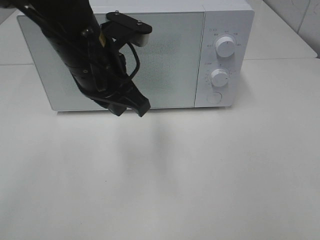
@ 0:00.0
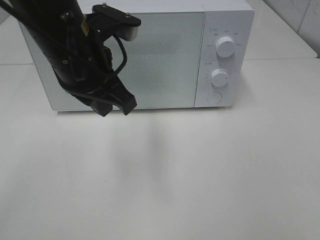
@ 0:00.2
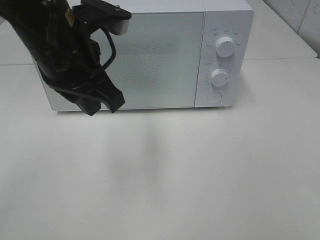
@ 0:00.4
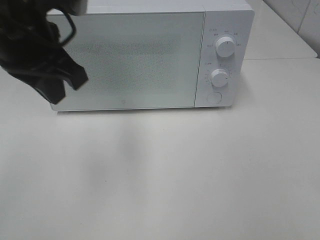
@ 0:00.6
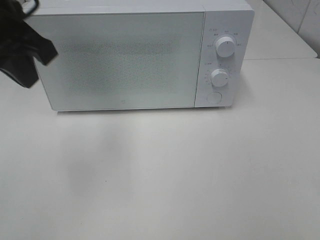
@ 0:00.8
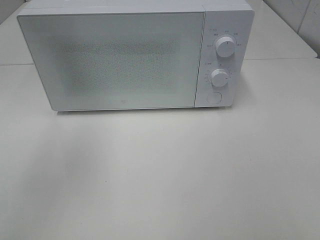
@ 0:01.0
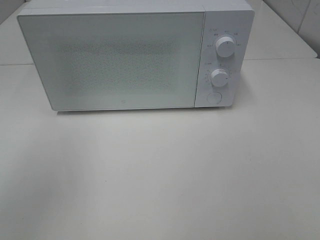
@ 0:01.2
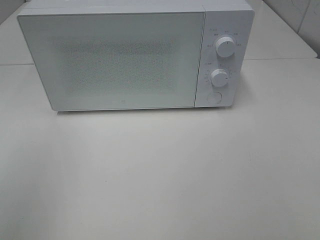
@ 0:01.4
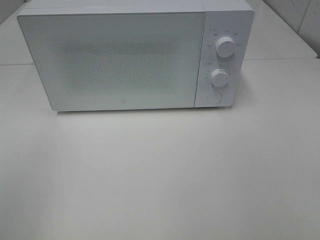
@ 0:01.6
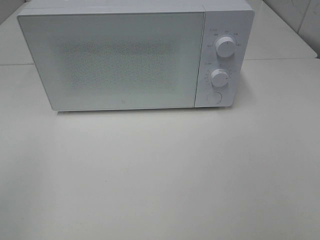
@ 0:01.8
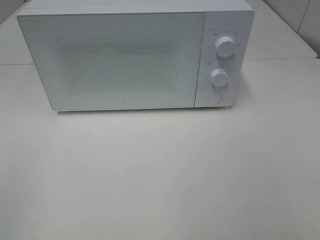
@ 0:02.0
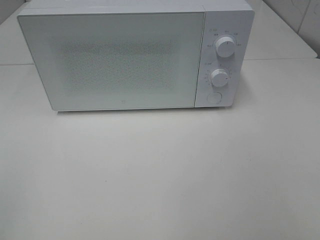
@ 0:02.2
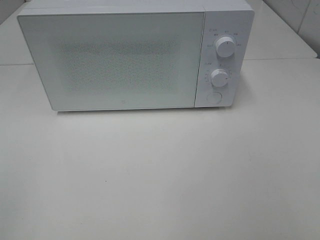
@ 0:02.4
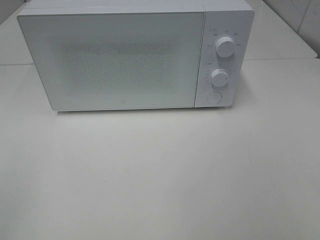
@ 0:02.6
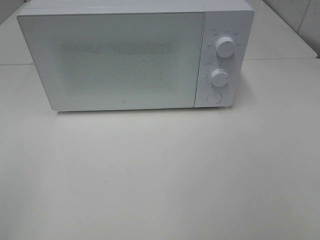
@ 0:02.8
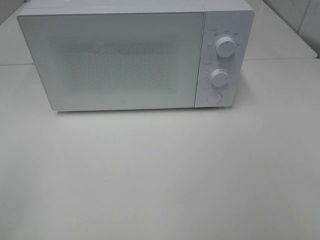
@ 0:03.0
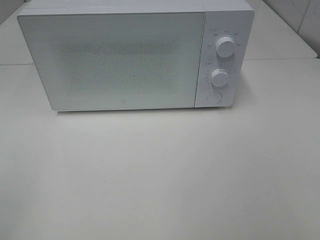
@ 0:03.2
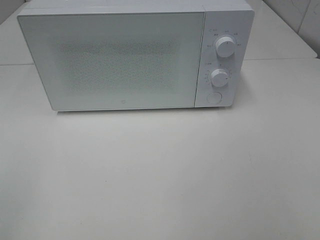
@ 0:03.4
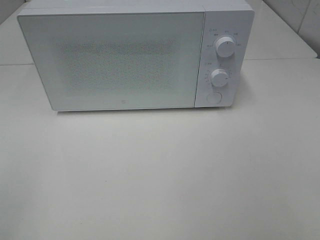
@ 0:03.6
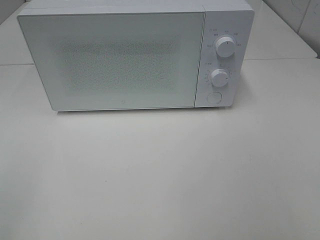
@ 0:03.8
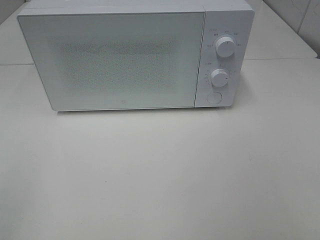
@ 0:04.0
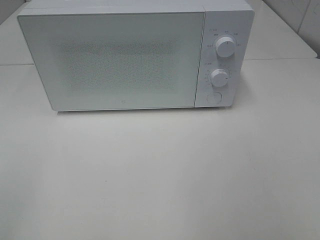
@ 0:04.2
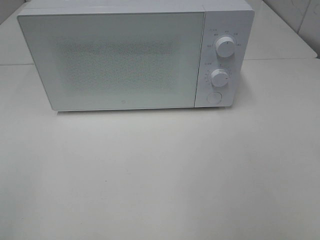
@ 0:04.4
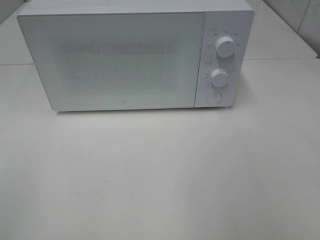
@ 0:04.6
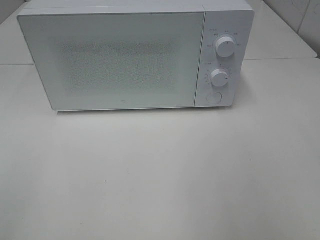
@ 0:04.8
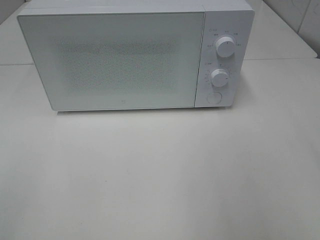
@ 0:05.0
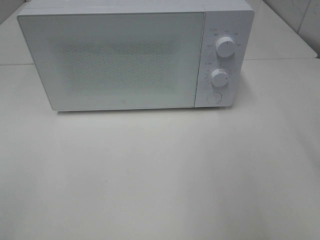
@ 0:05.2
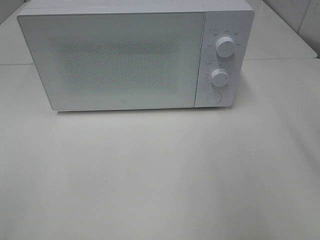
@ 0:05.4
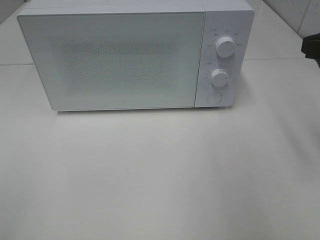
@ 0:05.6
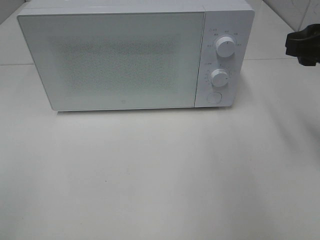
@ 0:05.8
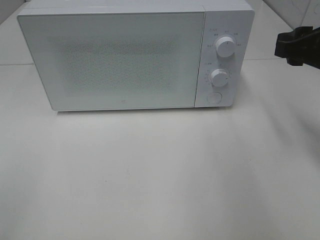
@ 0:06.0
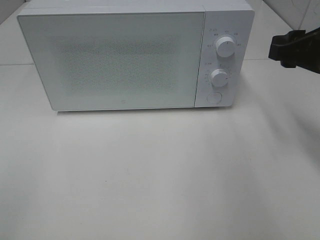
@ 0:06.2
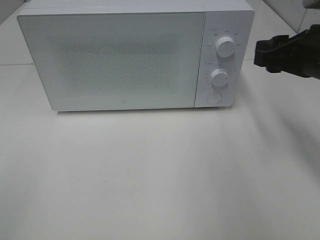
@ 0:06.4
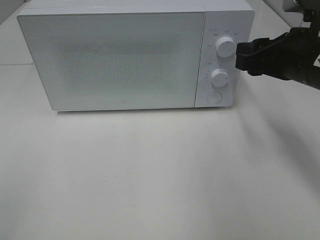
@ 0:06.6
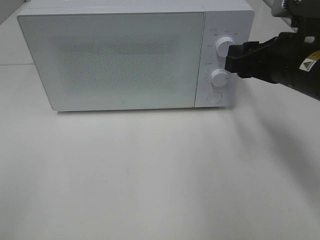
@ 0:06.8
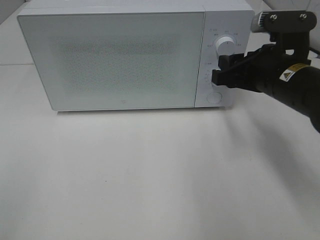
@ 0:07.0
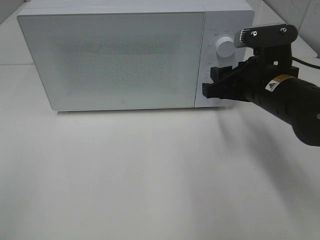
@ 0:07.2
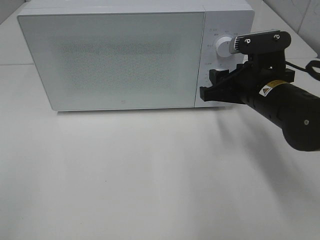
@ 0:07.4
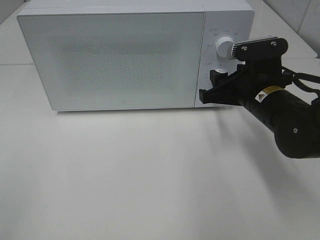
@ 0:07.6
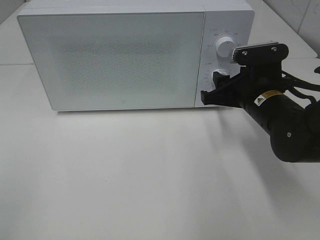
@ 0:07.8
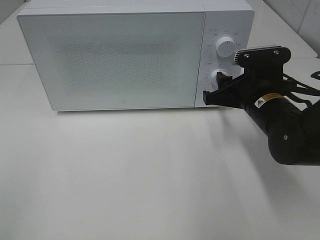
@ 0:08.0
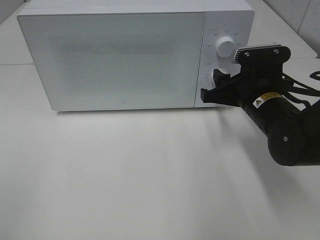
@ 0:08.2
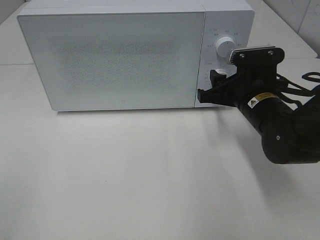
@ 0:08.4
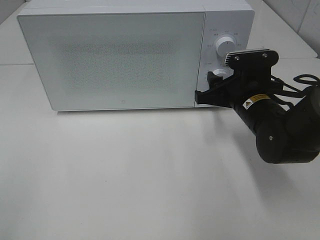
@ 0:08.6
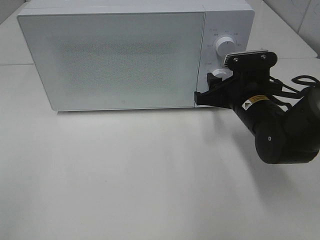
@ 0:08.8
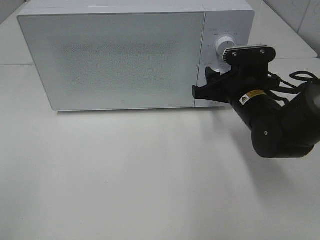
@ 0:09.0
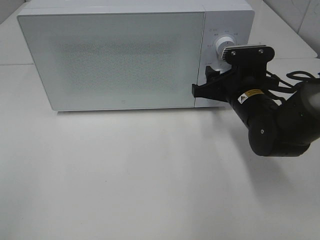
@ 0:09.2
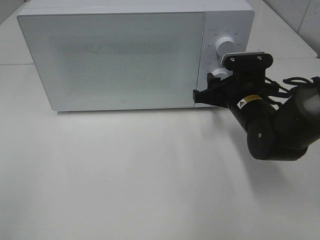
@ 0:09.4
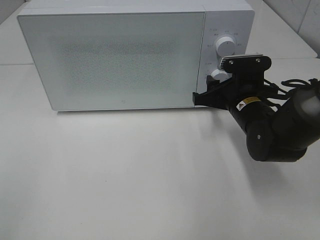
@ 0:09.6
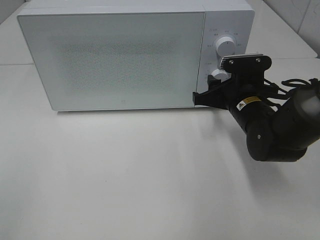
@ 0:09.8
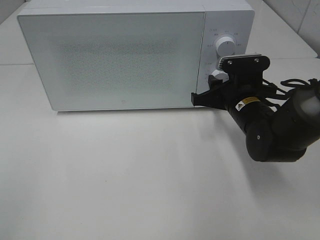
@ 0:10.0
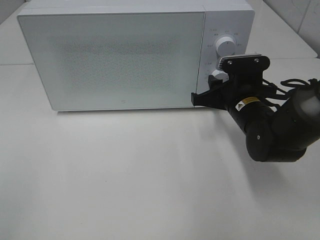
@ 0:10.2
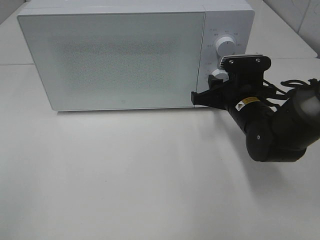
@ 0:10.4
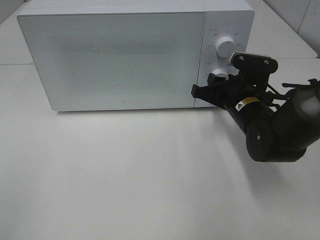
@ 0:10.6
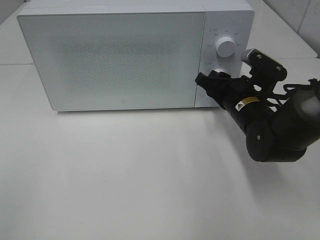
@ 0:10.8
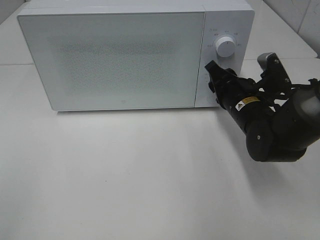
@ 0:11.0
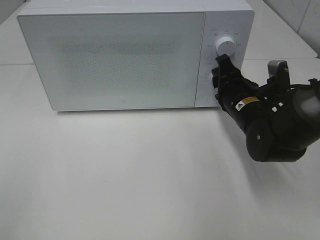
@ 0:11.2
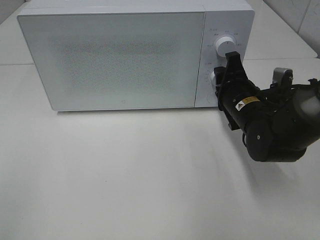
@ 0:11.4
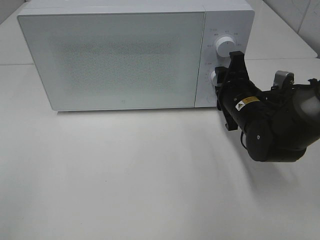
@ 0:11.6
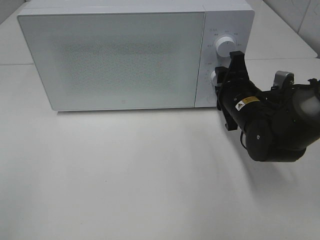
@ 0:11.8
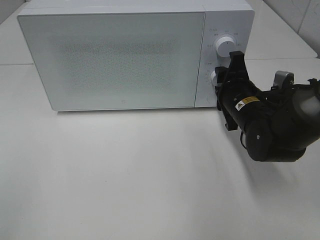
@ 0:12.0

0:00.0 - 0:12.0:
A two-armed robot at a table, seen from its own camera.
Task of the whole recording: Heat the burger.
0:00.0 - 0:01.6: The left gripper heads to the left, backward and upward, covering some 35 cm.
0:04.4 - 0:06.0: The right gripper moves forward, roughly 20 cm.
0:06.0 - 0:07.6: The right gripper moves downward and to the left, roughly 15 cm.
0:07.6 - 0:10.4: There are only small adjustments of the grippers.

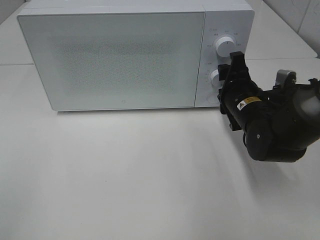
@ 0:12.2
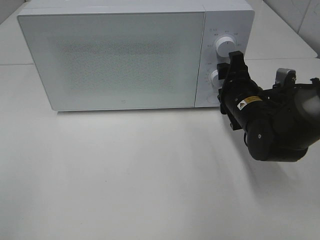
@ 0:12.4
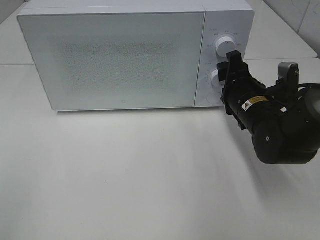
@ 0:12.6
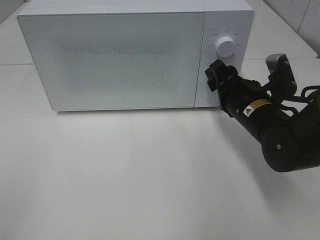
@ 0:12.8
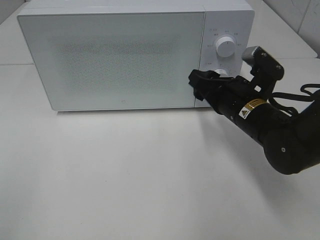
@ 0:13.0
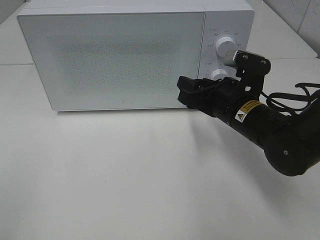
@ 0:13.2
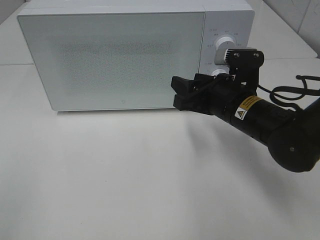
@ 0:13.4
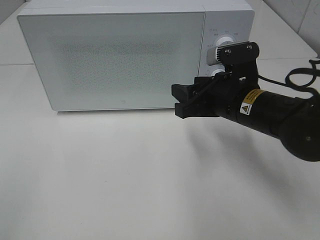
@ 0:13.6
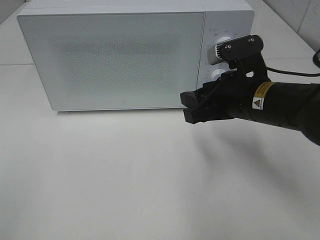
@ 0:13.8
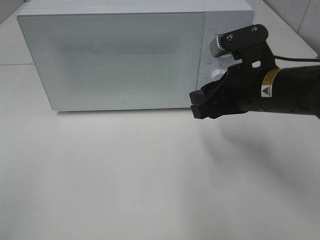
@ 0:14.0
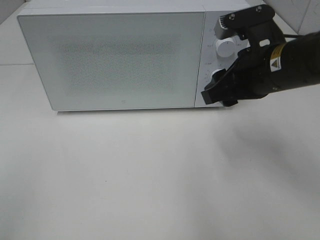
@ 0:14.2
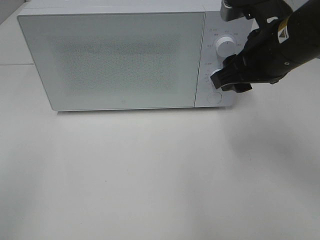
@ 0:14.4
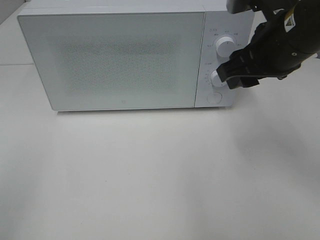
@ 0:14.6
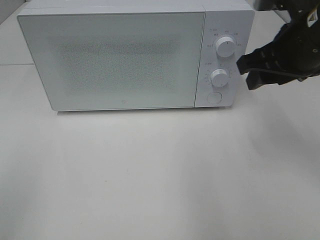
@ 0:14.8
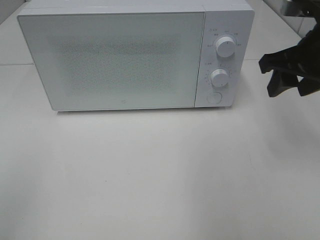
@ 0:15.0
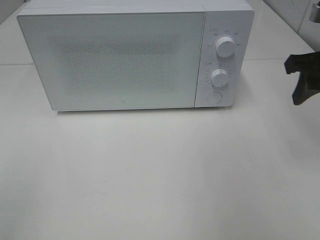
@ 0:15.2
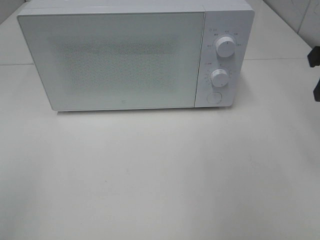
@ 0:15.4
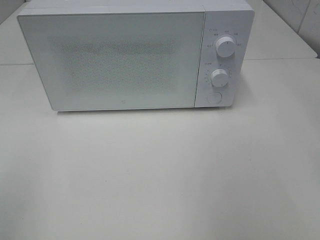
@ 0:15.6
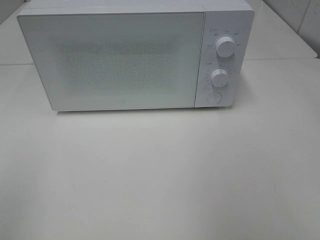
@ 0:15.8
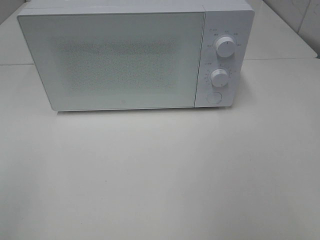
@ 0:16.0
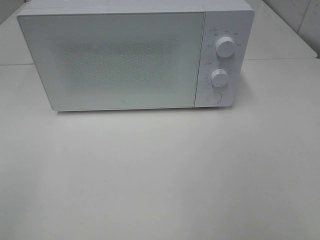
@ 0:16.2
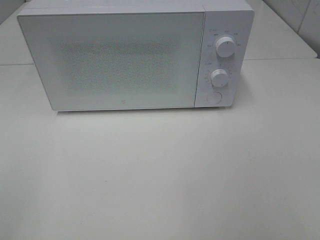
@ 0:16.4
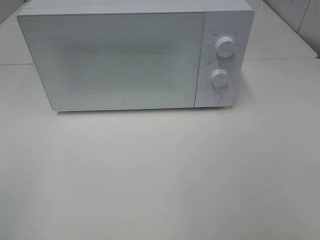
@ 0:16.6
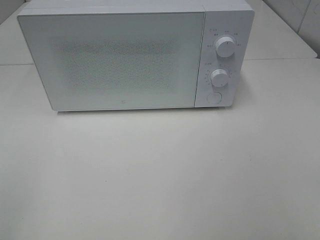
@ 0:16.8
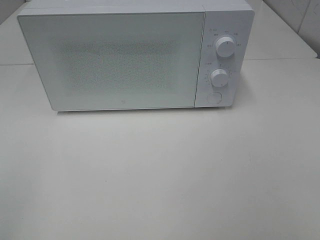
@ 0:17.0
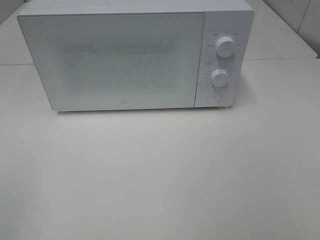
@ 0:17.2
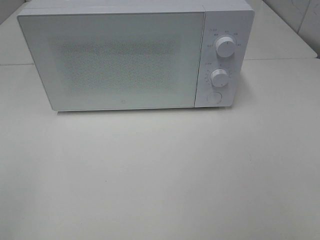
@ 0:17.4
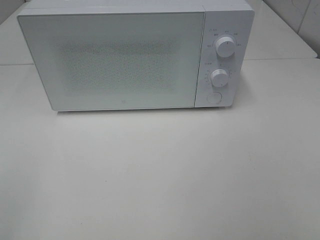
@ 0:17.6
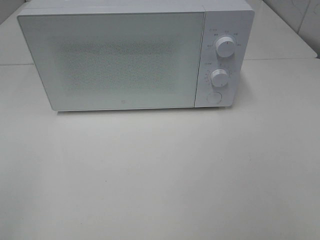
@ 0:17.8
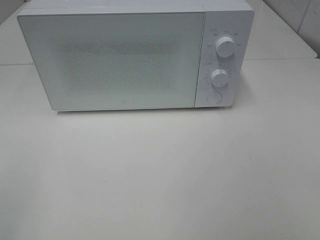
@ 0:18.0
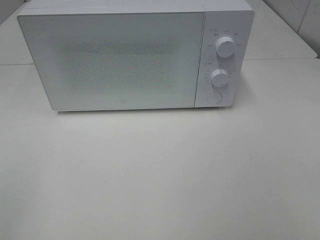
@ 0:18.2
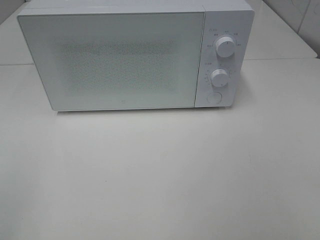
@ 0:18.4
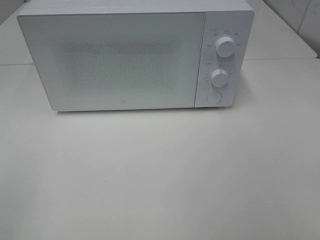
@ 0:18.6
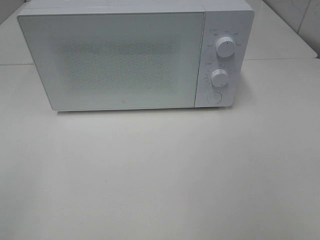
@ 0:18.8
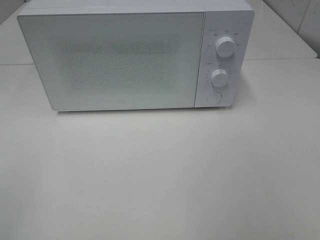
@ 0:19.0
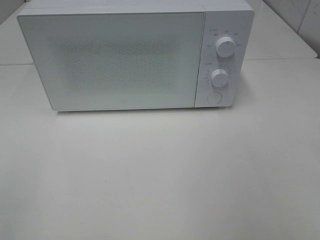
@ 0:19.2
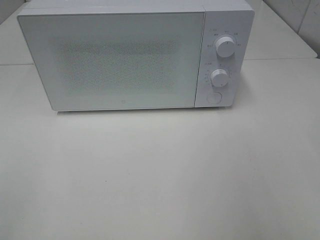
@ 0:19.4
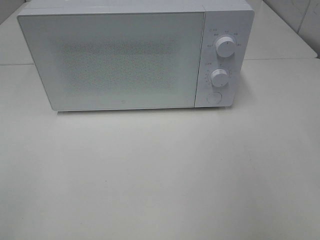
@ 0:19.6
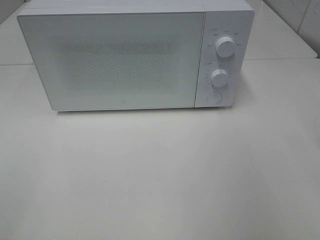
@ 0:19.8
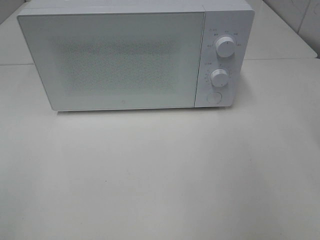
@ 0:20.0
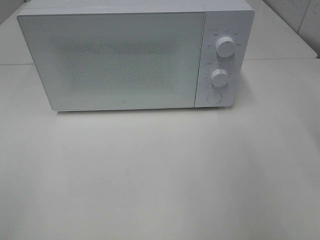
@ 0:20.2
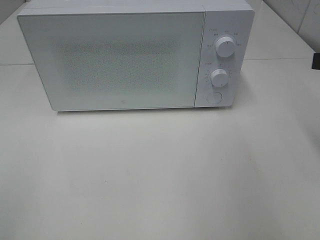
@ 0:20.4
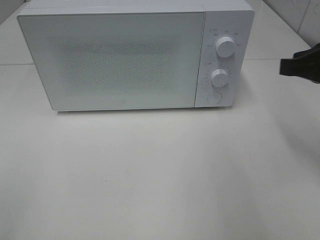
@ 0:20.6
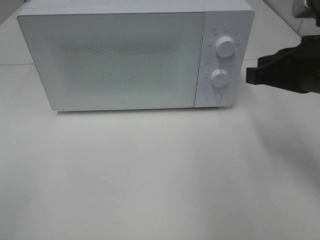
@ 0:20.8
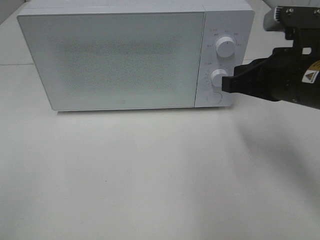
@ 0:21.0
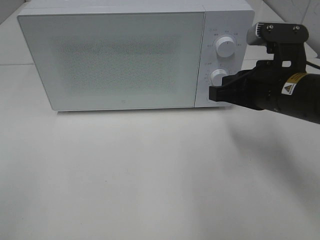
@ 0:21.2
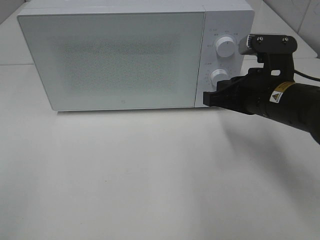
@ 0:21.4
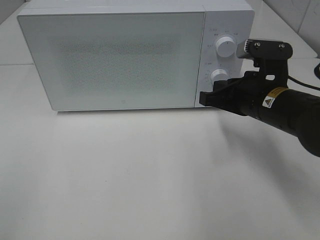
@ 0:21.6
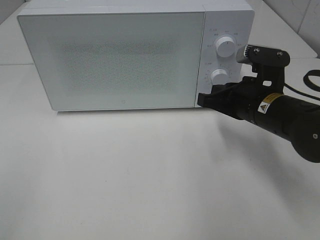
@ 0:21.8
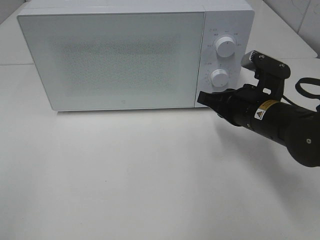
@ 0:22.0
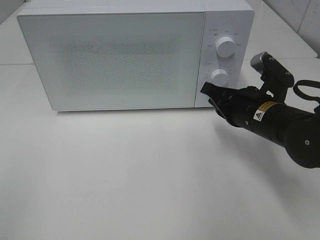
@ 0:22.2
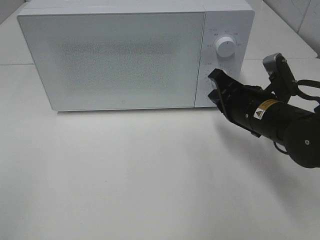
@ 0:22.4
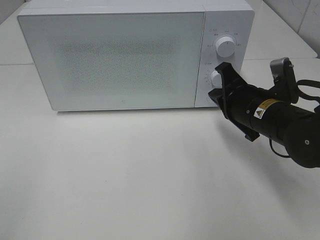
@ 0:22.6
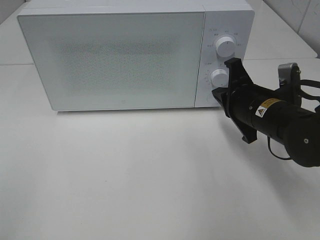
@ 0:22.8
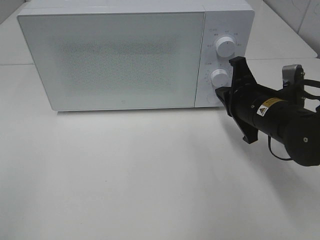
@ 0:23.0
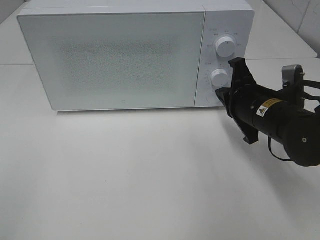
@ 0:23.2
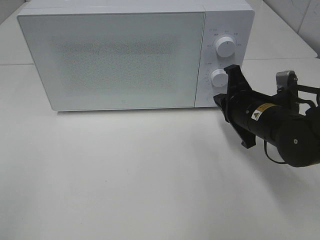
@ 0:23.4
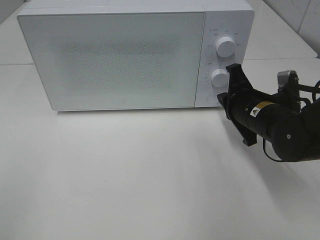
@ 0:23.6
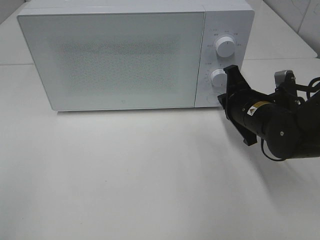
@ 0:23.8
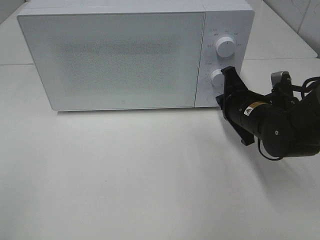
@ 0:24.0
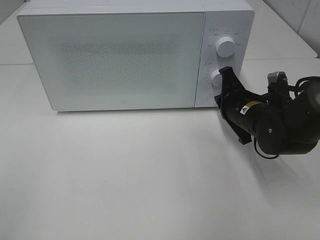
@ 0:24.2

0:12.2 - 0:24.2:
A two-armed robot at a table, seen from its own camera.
Task of the whole recording: Heat the burger.
0:12.2 - 0:13.8: The right gripper heads upward and backward, covering some 10 cm.
0:13.8 - 0:15.2: The right gripper heads to the right and upward, covering some 15 cm.
0:15.2 - 0:16.6: The right gripper travels backward by about 25 cm.
0:19.8 - 0:21.2: The right gripper goes about 20 cm to the left, downward and forward.
0:21.2 - 0:22.6: The right gripper goes some 5 cm downward.
0:22.6 - 0:24.2: The right gripper ends up some 5 cm from where it was.
